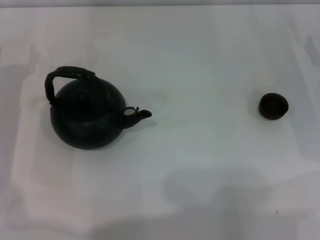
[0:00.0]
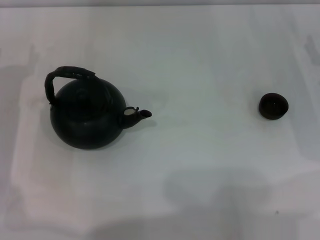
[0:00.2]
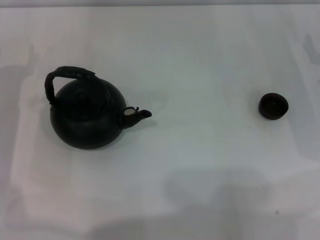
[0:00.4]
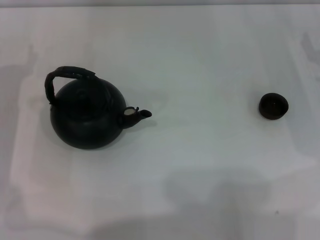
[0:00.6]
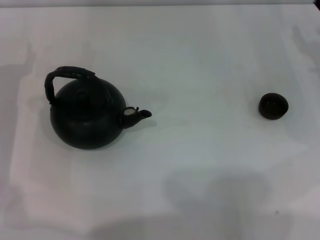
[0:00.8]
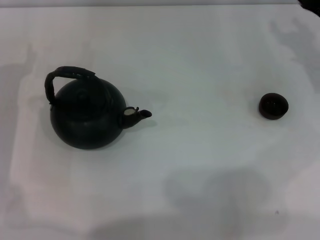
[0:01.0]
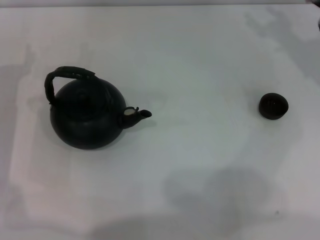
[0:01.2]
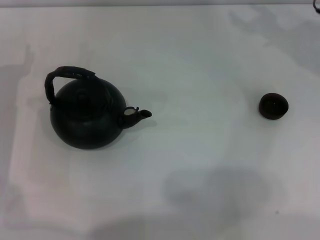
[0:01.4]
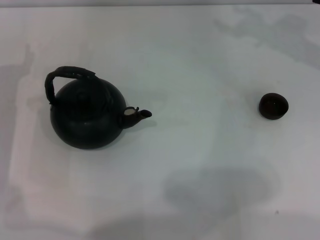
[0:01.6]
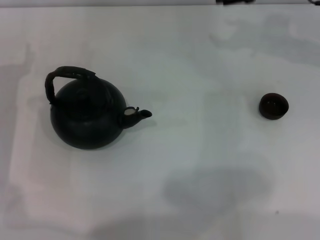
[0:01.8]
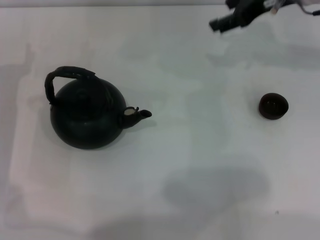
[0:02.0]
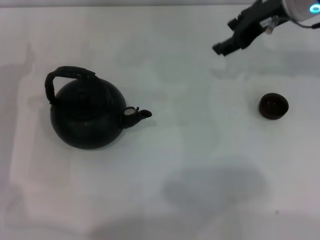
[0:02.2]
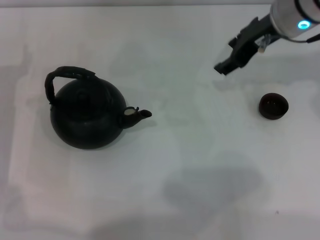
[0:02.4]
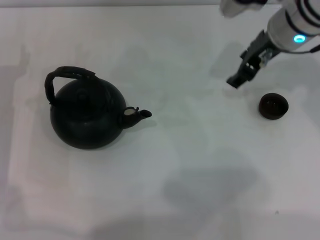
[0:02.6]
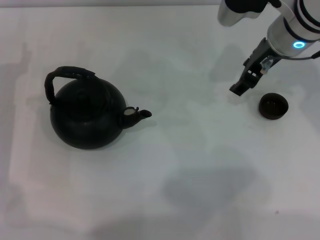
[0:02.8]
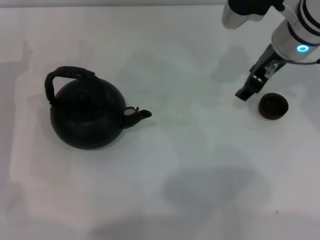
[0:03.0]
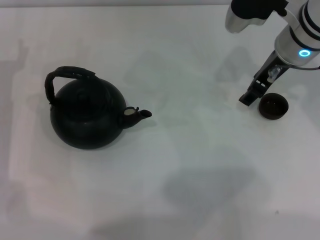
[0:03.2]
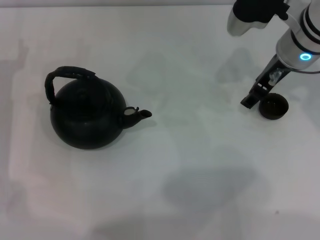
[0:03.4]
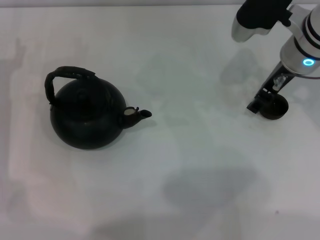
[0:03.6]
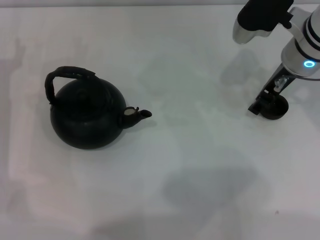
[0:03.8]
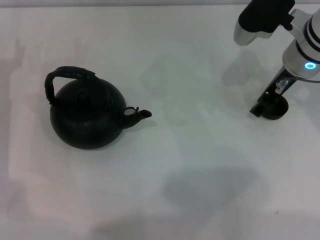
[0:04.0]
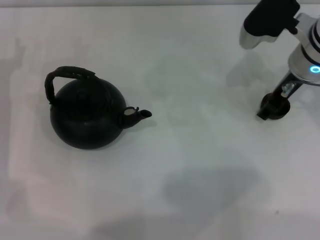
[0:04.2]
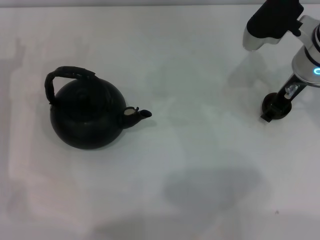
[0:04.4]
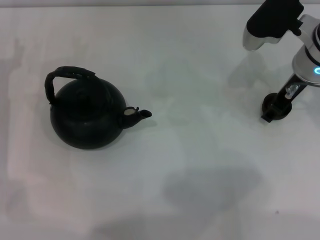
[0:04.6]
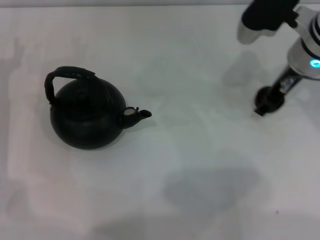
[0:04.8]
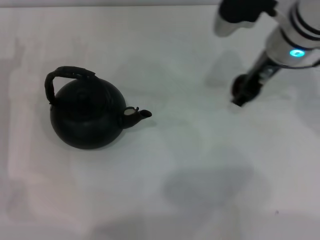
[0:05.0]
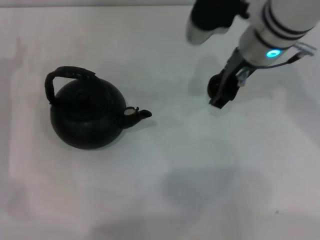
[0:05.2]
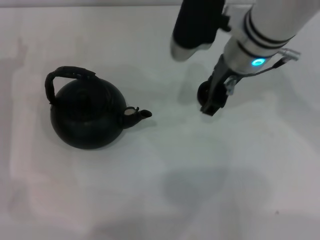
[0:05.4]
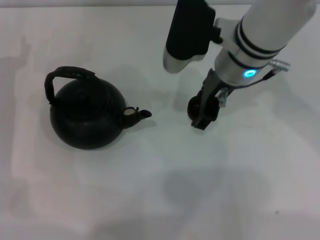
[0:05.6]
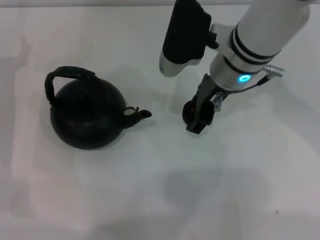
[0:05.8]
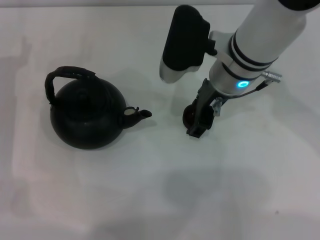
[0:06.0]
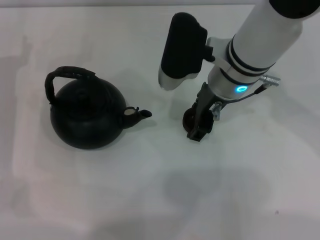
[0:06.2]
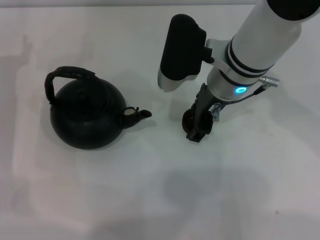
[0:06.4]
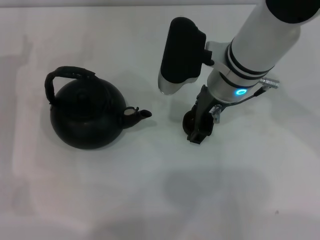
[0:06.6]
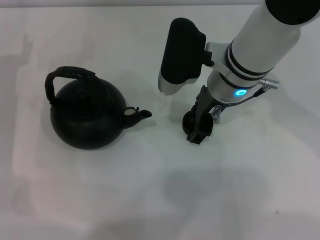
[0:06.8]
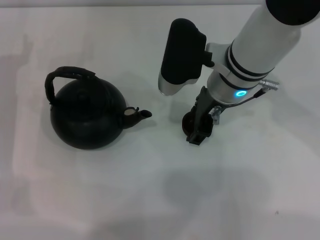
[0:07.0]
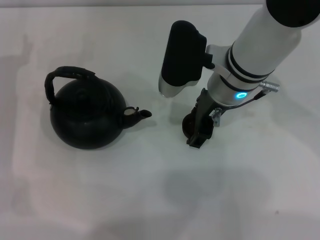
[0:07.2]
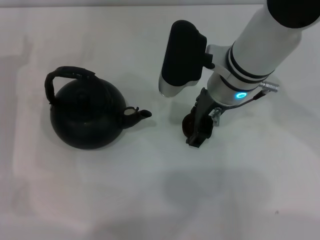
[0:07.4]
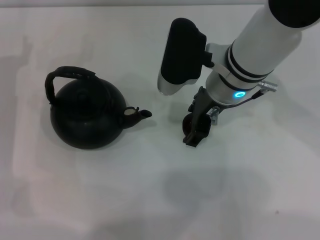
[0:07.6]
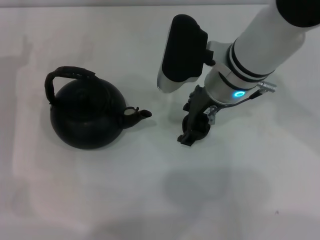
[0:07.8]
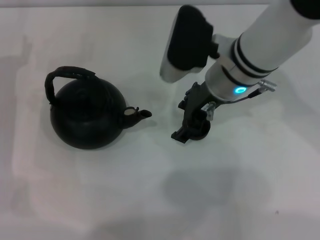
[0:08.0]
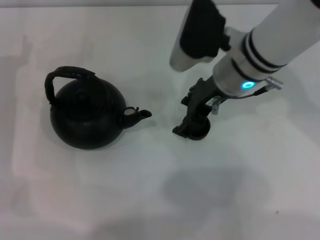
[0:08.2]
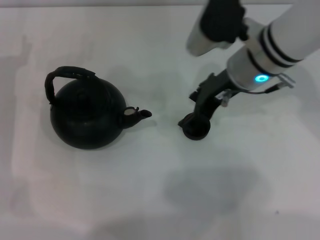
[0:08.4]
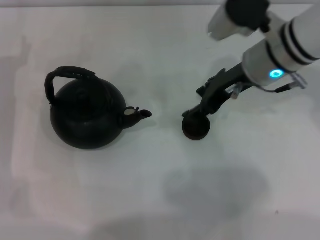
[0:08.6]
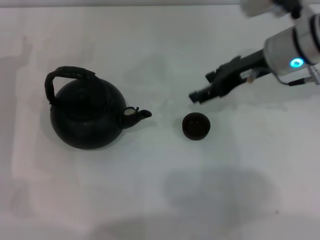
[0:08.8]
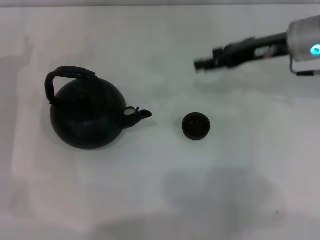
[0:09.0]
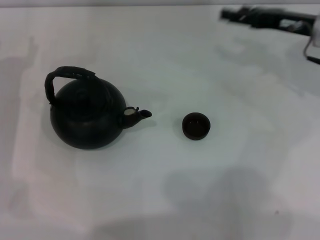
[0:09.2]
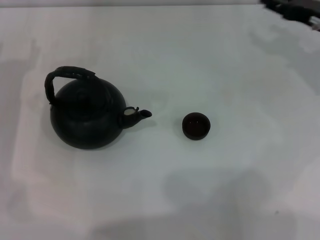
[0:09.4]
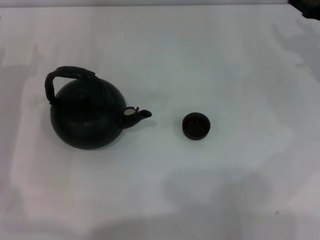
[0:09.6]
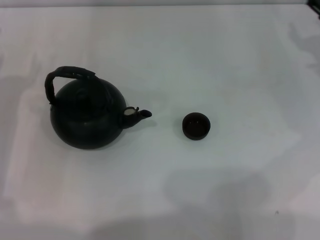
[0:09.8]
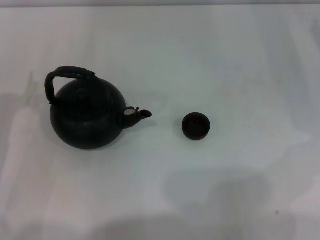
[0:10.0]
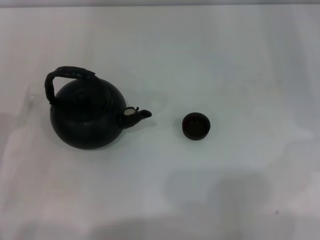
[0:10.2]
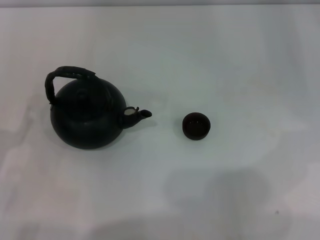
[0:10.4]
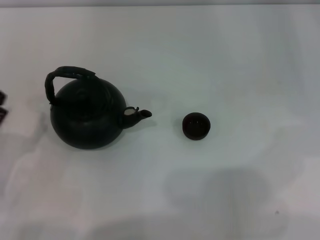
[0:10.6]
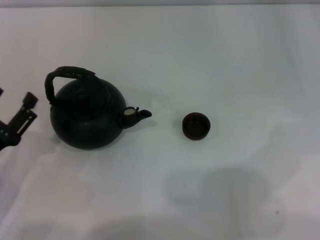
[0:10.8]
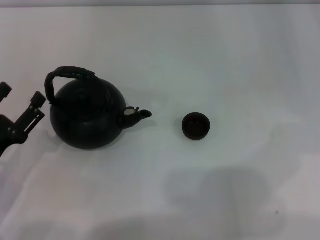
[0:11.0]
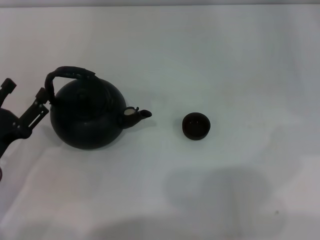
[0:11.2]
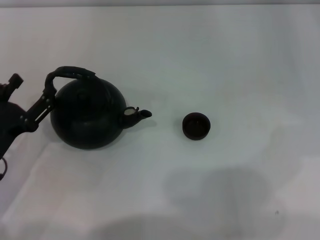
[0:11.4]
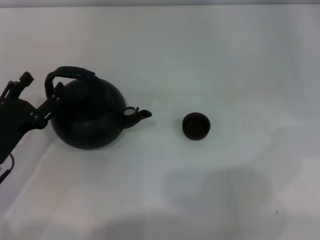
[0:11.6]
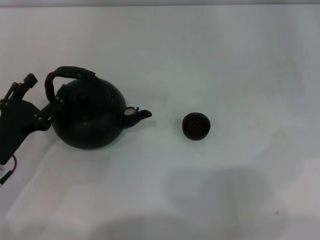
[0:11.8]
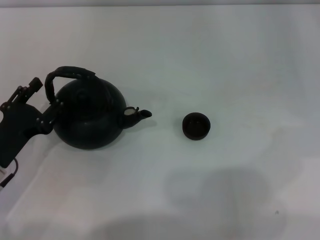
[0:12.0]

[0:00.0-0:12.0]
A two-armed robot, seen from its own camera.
Task of the whole recording: Grasp the handle of the teapot with one hand and pour tea into the teacup.
Step, 0:00.0 to 0:05.0: Pick up the teacup with the right gripper.
Step, 0:05.2 to 0:08.4: Place the teacup in the center of view with the right gripper.
0:01.6 to 0:03.0: The right gripper travels to the left and backward by about 10 cm.
0:03.0 to 0:04.4: The grippers move only a little.
0:04.4 to 0:06.0: The right gripper heads to the left, covering some 10 cm.
0:06.0 to 0:07.6: The two grippers keep their place.
0:07.6 to 0:09.0: The right gripper moves to the right, about 15 cm.
0:09.0 to 0:10.4: The left gripper goes some 15 cm backward. Meanwhile the right gripper shifts some 15 cm to the right.
0:10.4 to 0:12.0: The left gripper changes place by about 5 cm.

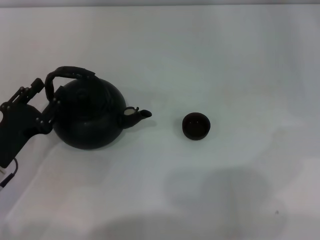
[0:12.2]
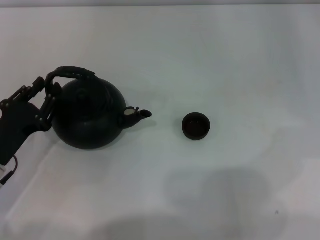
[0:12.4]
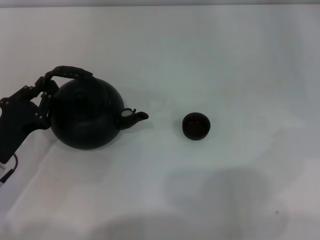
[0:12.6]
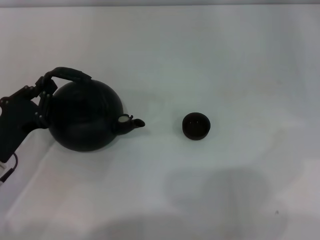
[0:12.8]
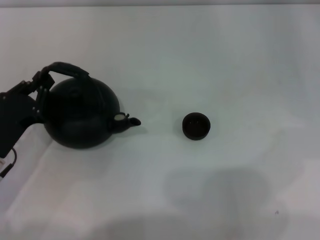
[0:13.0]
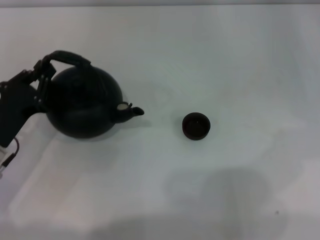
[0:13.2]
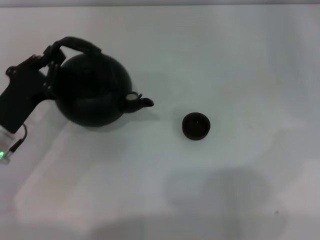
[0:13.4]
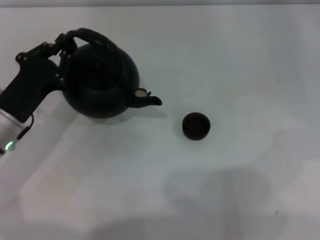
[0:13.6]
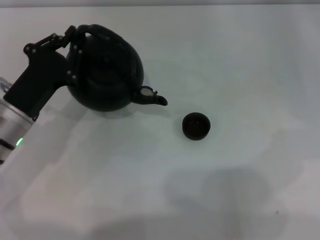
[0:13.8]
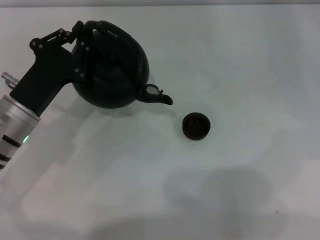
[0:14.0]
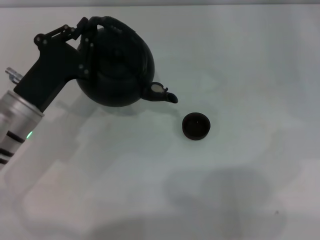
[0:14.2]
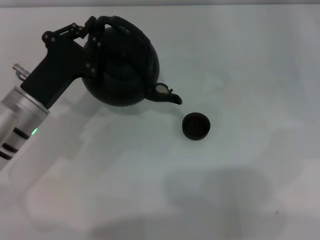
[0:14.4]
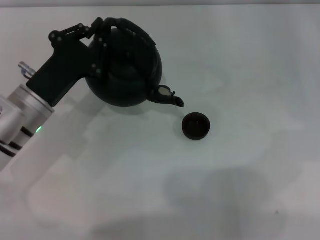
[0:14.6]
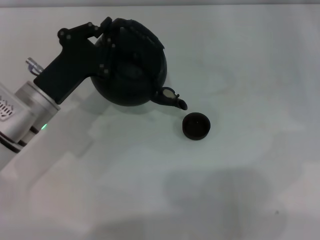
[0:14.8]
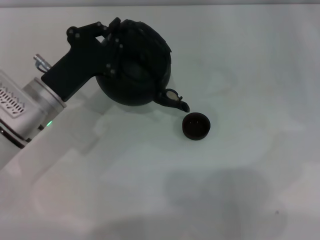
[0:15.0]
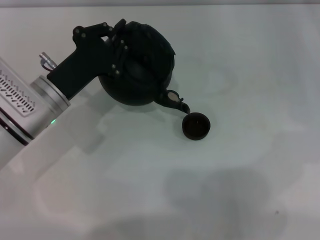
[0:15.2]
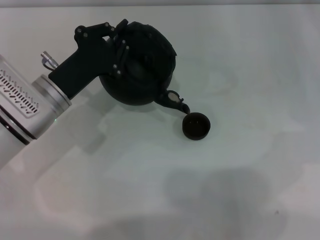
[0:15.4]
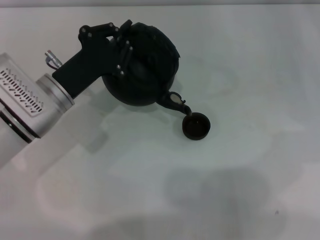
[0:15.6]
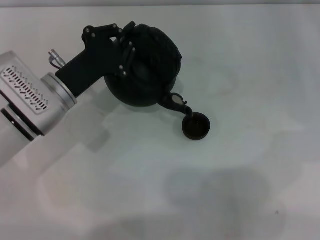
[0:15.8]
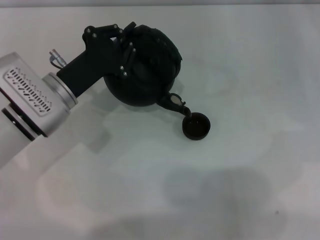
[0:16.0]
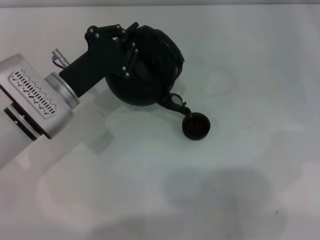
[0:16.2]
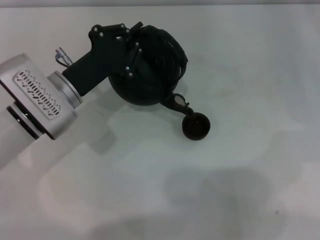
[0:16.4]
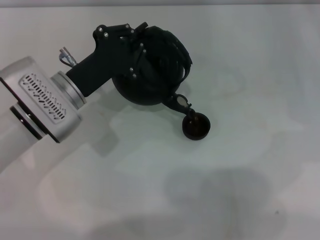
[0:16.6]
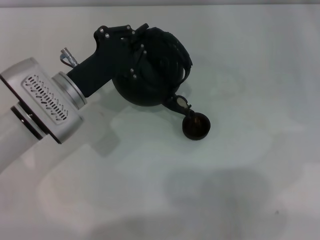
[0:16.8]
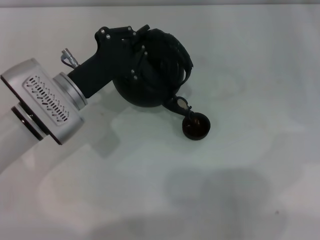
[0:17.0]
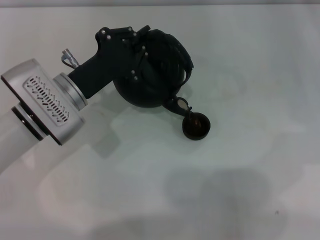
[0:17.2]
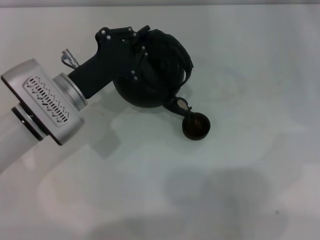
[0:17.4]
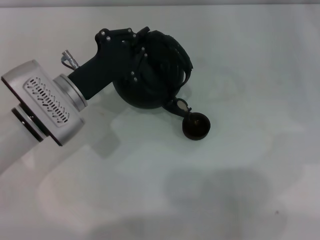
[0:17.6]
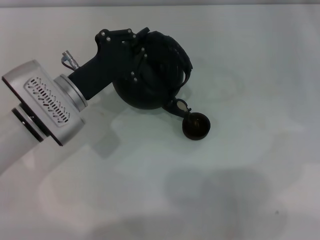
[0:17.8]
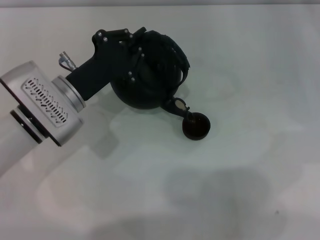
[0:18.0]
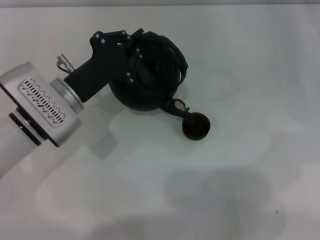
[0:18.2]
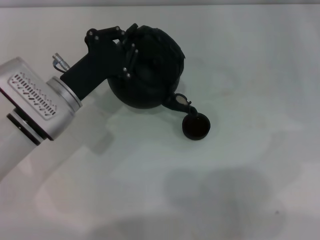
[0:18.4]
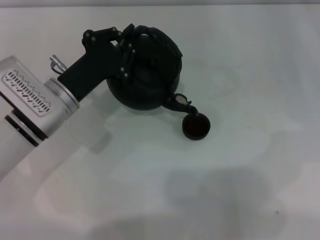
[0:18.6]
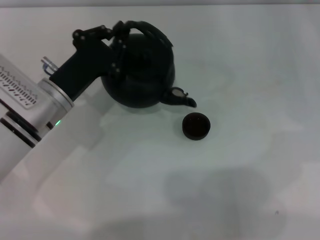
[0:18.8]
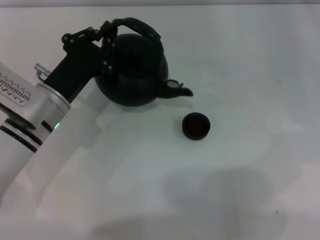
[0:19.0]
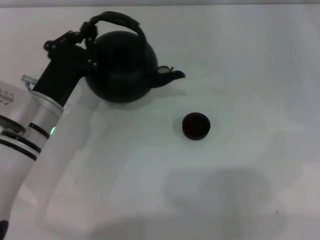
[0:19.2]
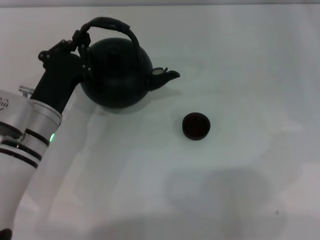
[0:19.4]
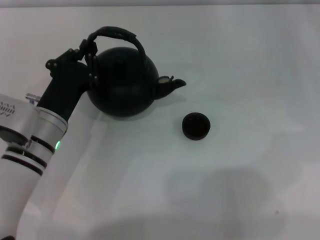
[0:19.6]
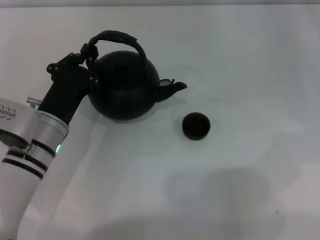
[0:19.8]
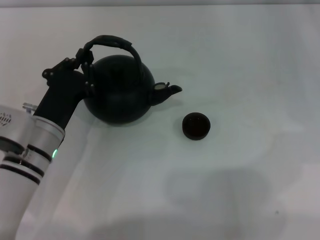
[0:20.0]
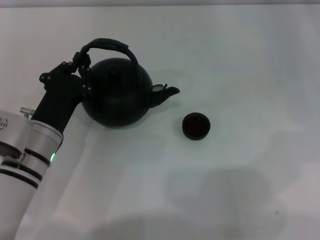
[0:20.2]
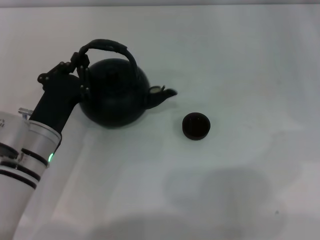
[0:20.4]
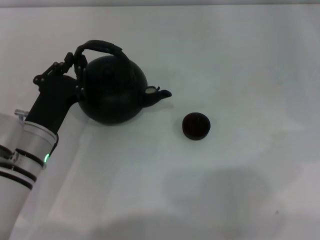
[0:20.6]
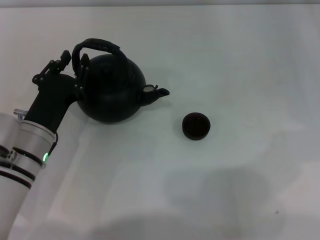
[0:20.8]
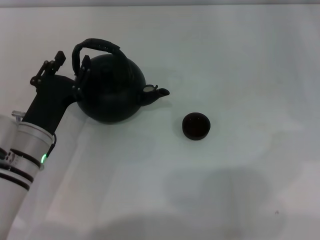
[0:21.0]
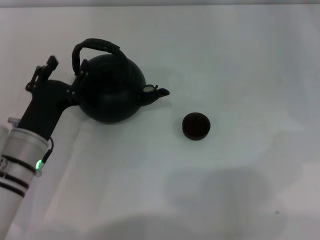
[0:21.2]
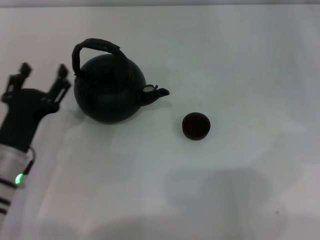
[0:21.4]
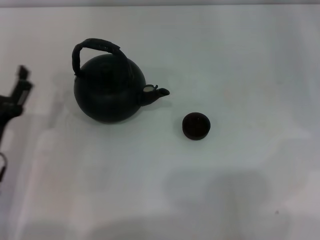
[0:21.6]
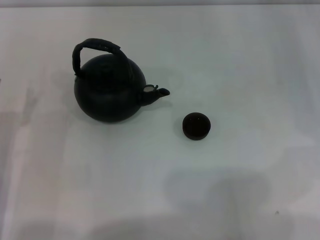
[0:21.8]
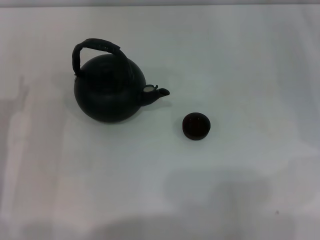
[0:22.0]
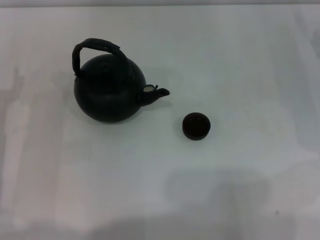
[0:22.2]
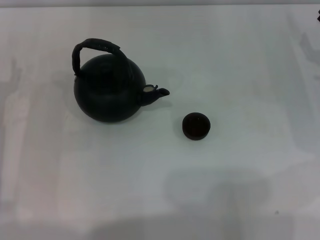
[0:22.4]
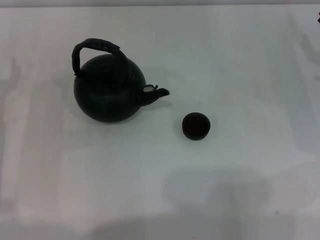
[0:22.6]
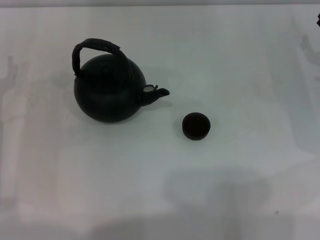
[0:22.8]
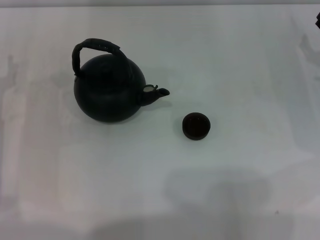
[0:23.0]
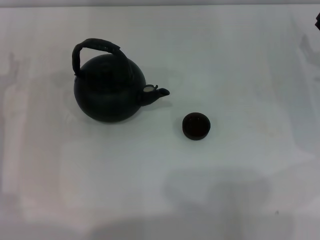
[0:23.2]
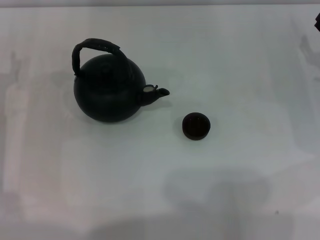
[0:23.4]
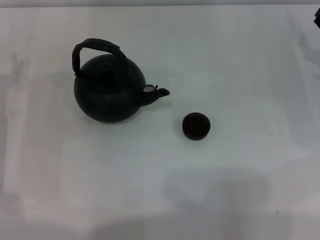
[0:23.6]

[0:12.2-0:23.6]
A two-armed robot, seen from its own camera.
Task of the whole recording: Grasp the handle of the teapot with one hand and pour tea into the teacup.
Step, 0:13.6 to 0:18.6: Pour tea into the teacup with the left gripper.
Step, 0:19.0 to 0:21.2: Put down the teapot with the left gripper.
0:12.2 to 0:13.6: The left gripper shifts roughly 5 cm forward, and closes.
0:13.6 to 0:15.0: The left gripper heads to the right, covering about 5 cm.
0:15.0 to 0:16.4: The grippers make only small movements.
0:16.4 to 0:17.8: The two grippers keep their place.
0:19.4 to 0:20.8: There are only small adjustments of the grippers.
0:20.8 to 0:22.2: The left gripper heads to the left, covering about 10 cm, and opens.
